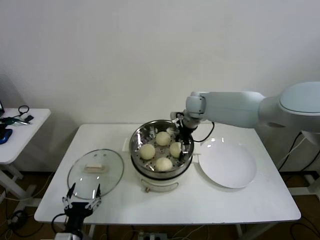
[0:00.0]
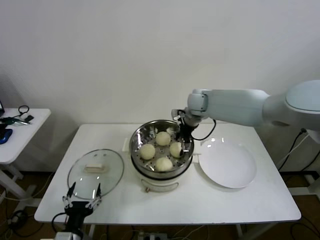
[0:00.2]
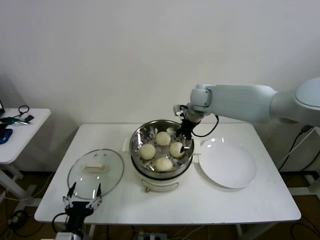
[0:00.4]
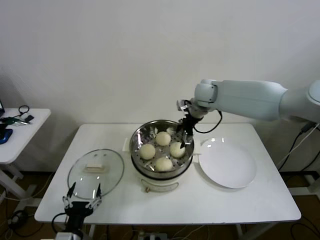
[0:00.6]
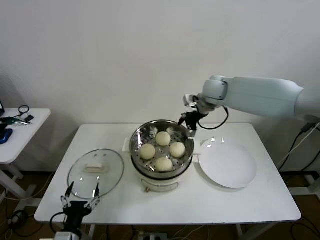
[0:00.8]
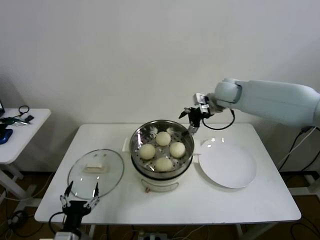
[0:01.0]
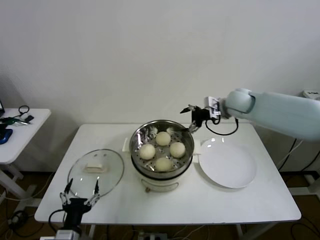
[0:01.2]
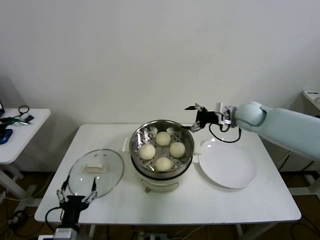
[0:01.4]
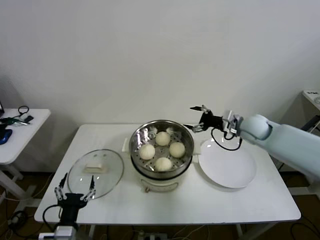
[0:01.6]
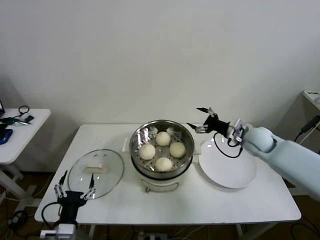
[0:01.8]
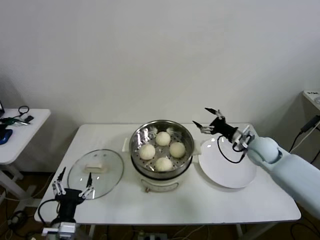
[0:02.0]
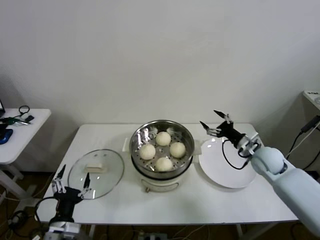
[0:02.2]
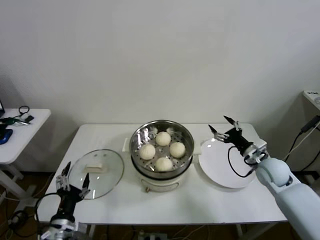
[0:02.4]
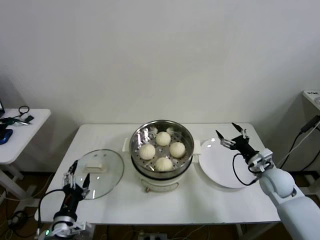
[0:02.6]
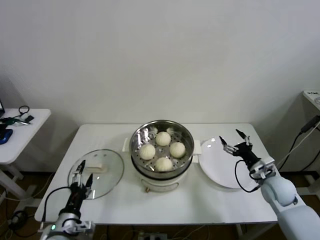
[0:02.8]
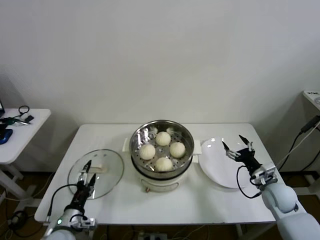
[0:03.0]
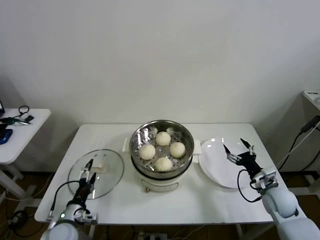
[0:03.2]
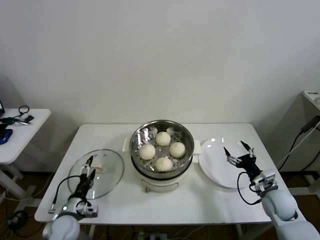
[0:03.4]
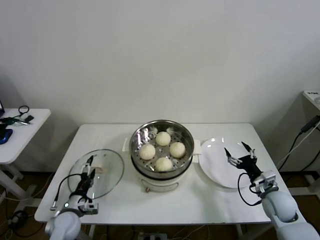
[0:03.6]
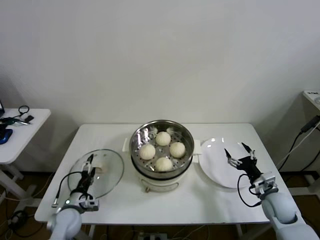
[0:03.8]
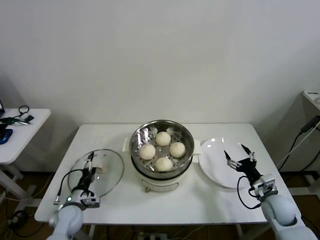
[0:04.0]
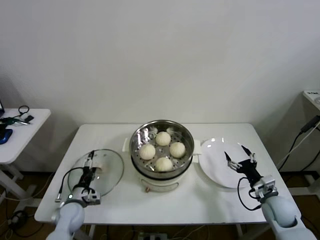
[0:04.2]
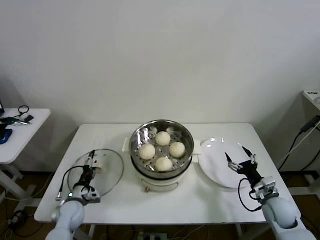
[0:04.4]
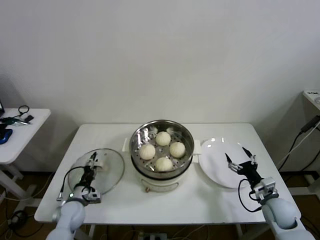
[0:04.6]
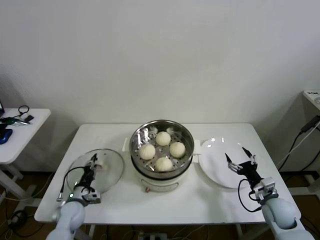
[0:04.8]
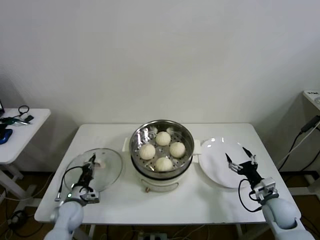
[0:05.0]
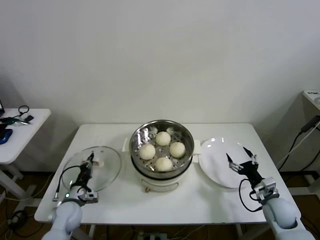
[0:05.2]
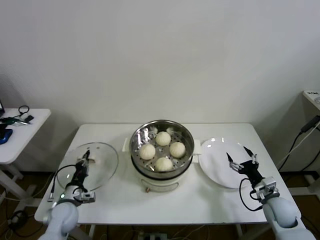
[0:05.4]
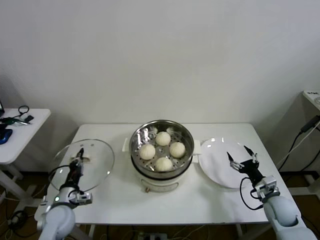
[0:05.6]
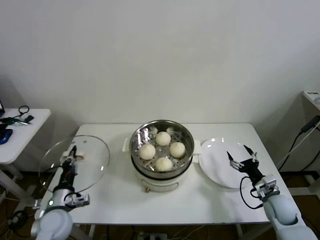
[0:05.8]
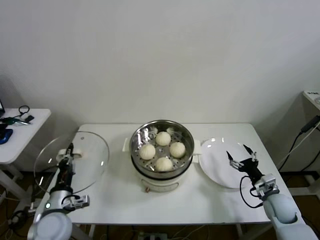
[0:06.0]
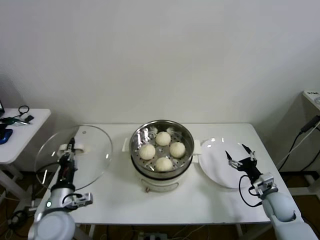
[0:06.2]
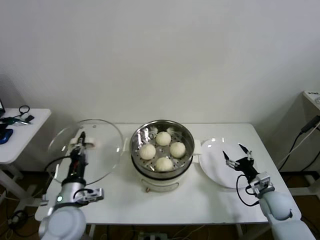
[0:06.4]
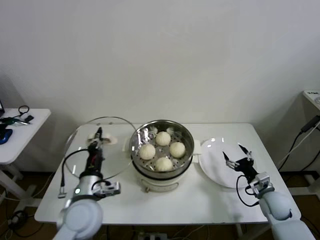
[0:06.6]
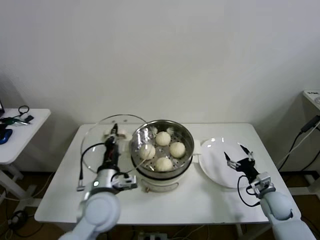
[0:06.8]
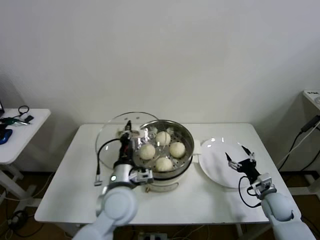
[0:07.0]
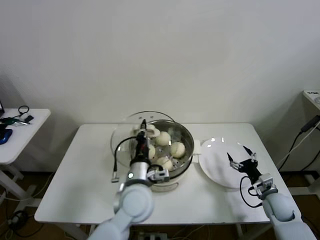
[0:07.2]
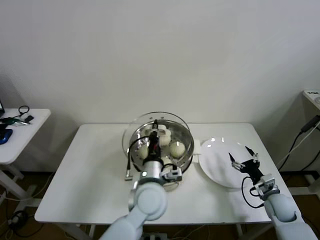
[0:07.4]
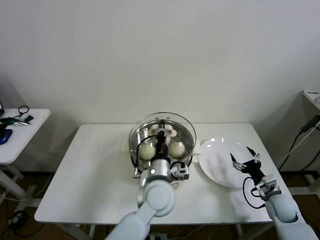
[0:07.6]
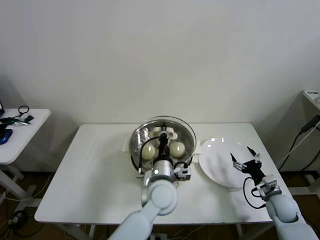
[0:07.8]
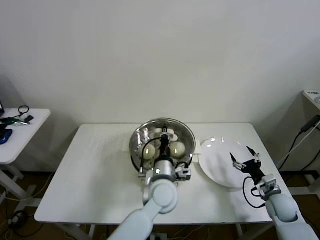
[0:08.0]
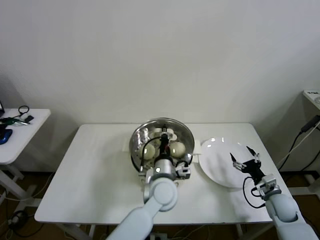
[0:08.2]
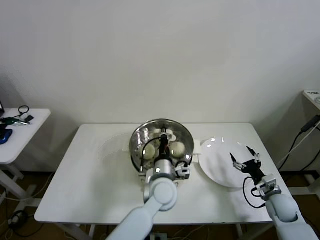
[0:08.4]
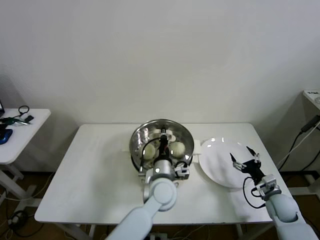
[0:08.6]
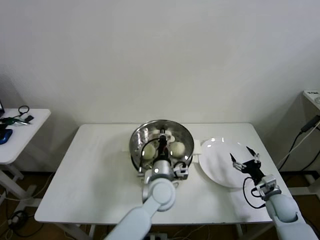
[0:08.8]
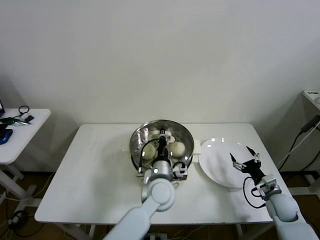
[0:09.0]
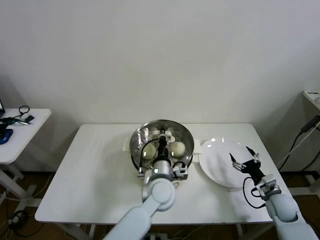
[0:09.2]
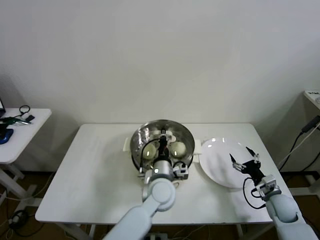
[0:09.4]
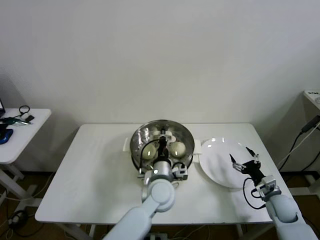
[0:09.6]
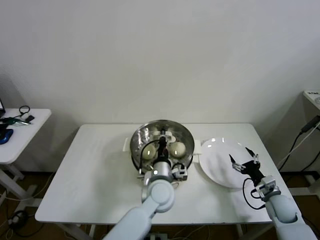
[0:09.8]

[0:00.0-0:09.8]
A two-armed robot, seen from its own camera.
Step, 0:00.0 to 0:04.8: Grasp the pot lid with left gripper.
0:00.0 to 0:01.4: The right gripper goes about 15 cm to the right.
0:01.4 to 0:02.8: The right gripper is displaced downward, backward and to the right by approximately 25 cm. The left gripper moves some 5 cm.
0:02.8 to 0:04.2: The left gripper is displaced forward and downward by about 15 cm. The right gripper goes about 5 cm downward.
0:04.2 to 0:05.6: The left gripper moves approximately 5 cm, and closes its fingers.
0:05.6 to 0:07.0: The left gripper heads to the right and upward, covering about 25 cm.
0:07.0 to 0:08.4: The left gripper is displaced to the right and forward by about 15 cm.
0:08.4 to 0:09.8: The grippers make only small movements.

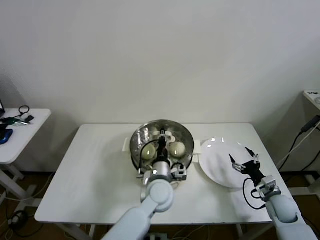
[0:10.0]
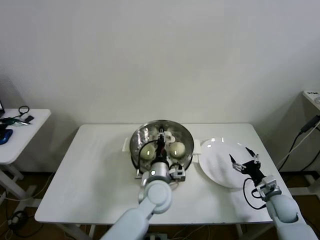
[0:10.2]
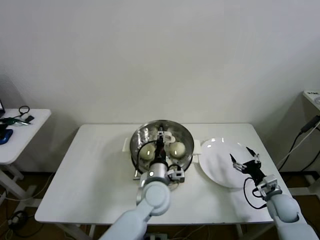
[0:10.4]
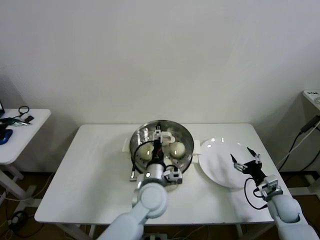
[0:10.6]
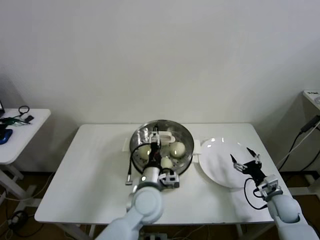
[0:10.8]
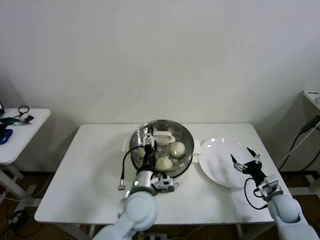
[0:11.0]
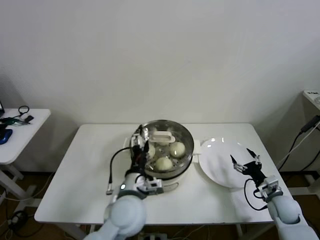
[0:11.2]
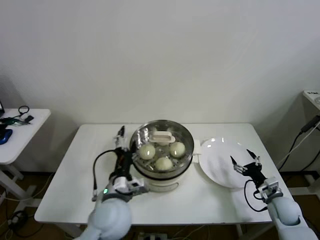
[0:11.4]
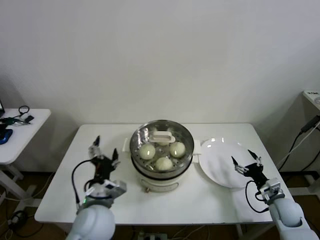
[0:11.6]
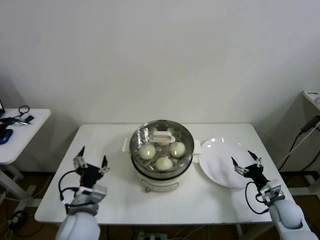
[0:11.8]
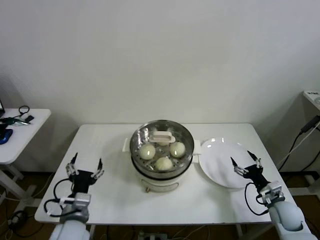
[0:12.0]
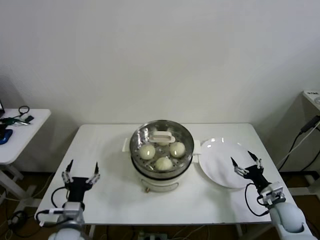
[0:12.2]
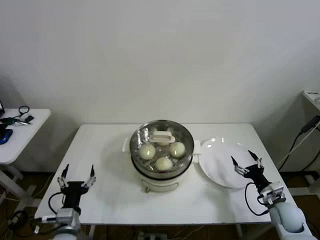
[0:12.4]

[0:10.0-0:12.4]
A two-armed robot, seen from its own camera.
0:10.0 to 0:11.2: The left gripper shifts about 10 cm to the left, backward and upward, and opens its fingers.
0:11.2 to 0:12.4: The left gripper moves to the left and downward, roughly 20 cm.

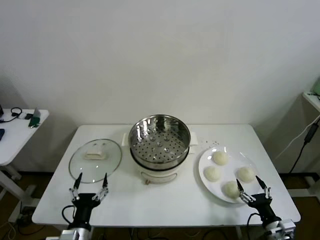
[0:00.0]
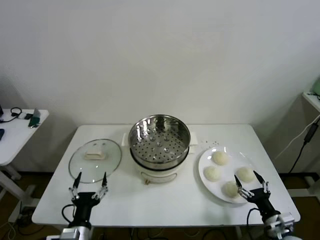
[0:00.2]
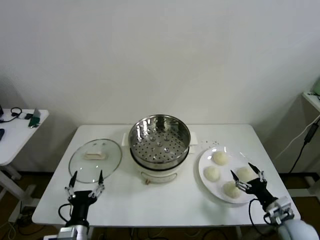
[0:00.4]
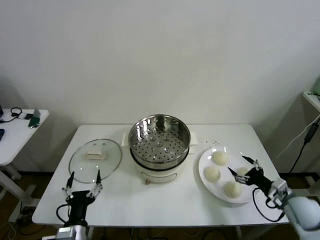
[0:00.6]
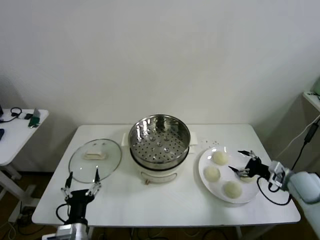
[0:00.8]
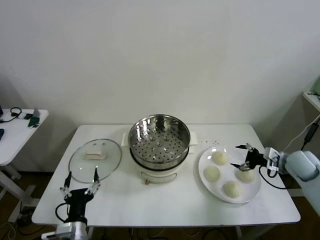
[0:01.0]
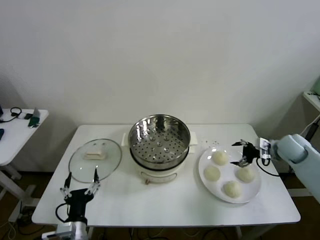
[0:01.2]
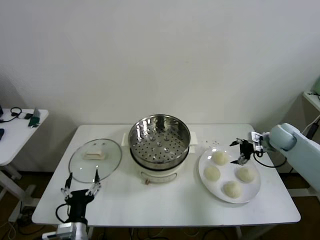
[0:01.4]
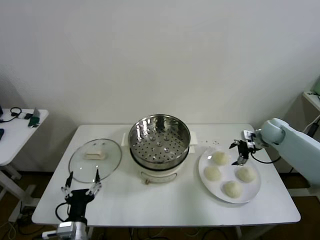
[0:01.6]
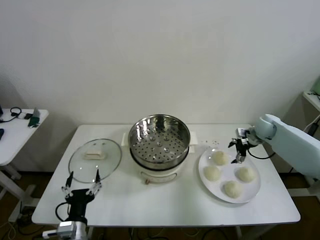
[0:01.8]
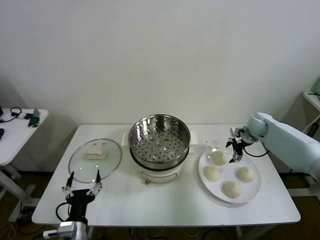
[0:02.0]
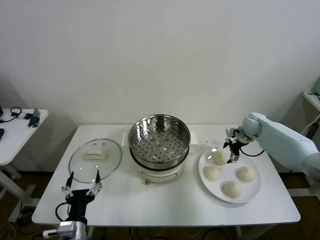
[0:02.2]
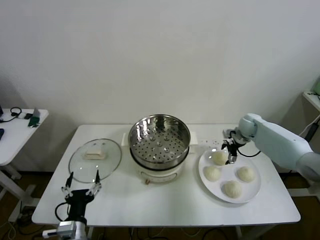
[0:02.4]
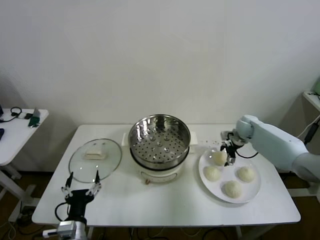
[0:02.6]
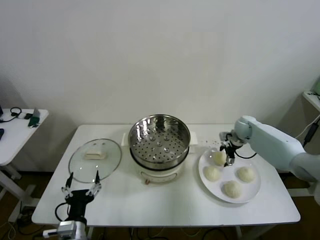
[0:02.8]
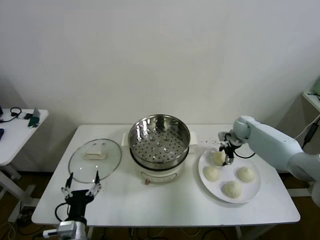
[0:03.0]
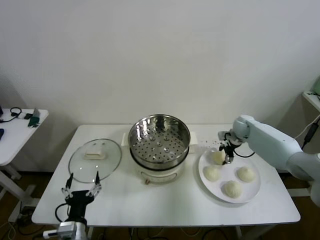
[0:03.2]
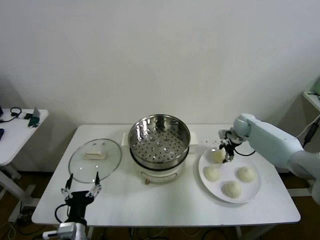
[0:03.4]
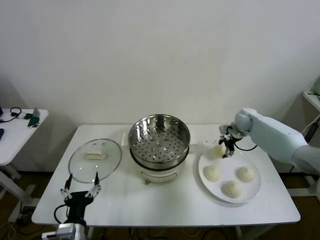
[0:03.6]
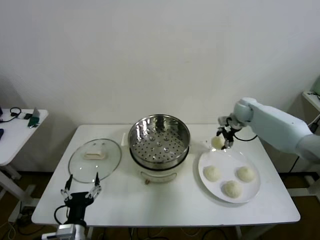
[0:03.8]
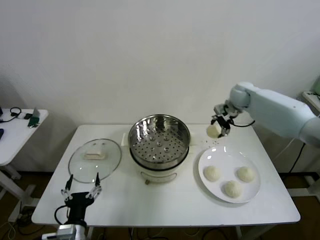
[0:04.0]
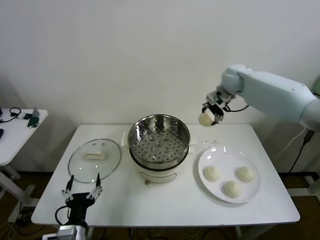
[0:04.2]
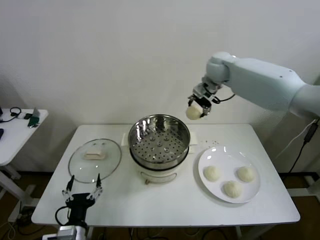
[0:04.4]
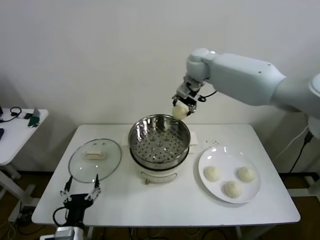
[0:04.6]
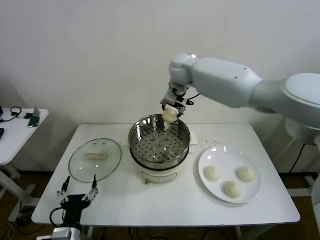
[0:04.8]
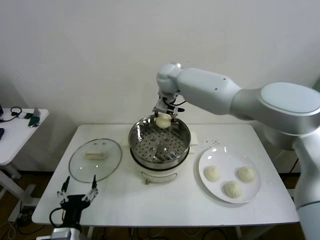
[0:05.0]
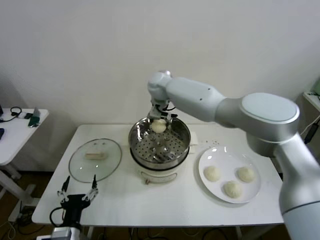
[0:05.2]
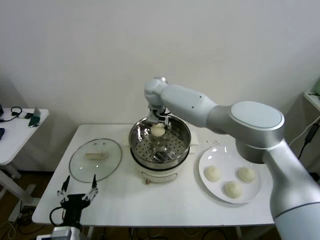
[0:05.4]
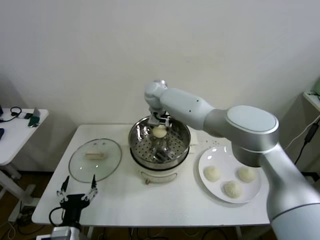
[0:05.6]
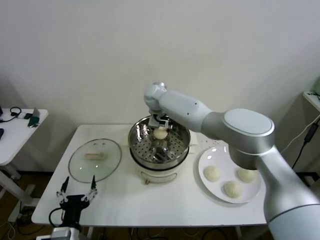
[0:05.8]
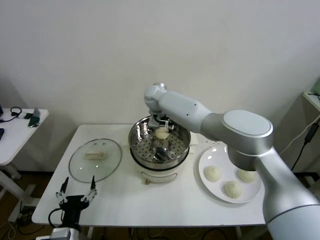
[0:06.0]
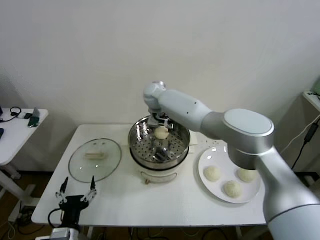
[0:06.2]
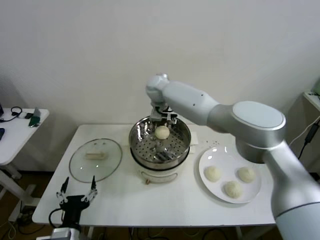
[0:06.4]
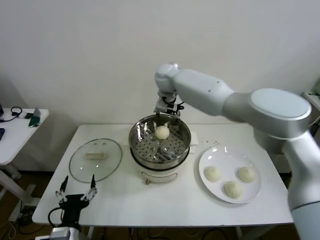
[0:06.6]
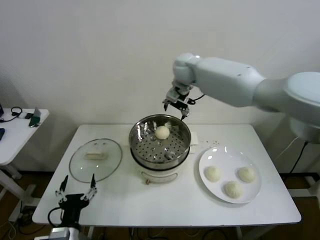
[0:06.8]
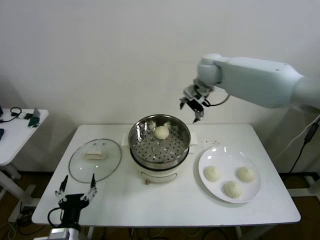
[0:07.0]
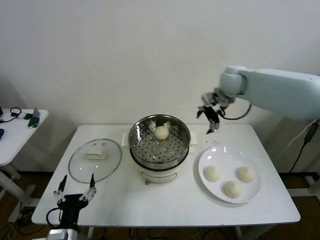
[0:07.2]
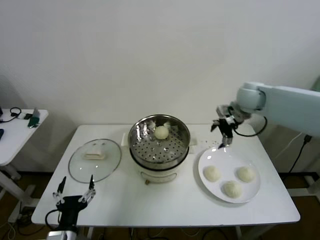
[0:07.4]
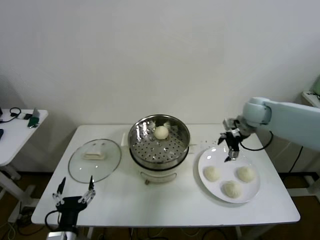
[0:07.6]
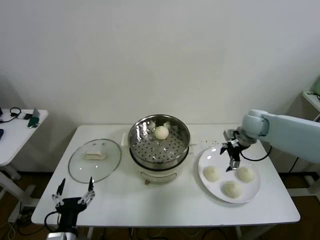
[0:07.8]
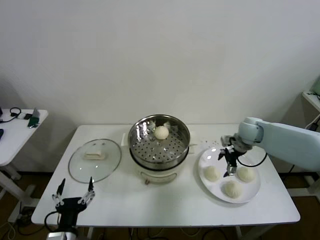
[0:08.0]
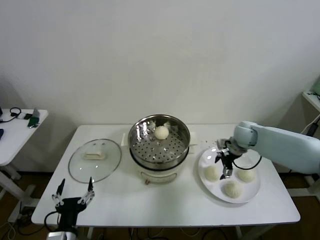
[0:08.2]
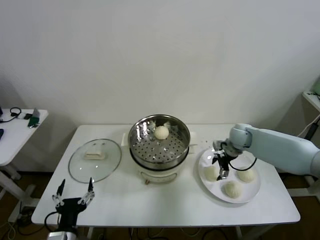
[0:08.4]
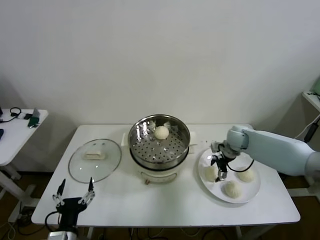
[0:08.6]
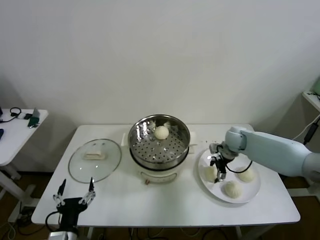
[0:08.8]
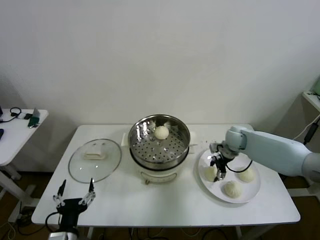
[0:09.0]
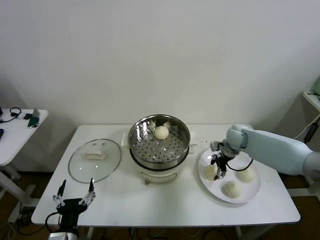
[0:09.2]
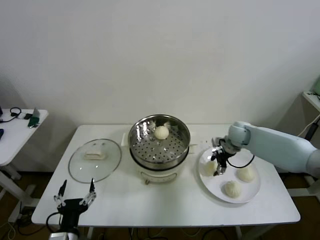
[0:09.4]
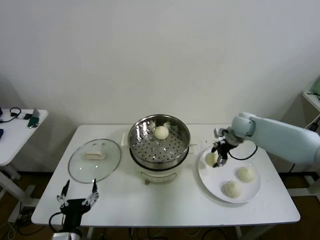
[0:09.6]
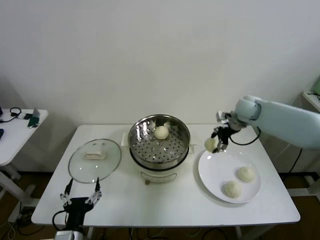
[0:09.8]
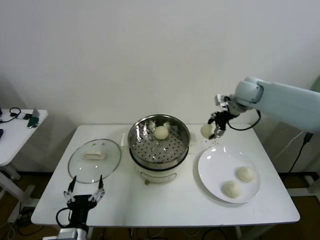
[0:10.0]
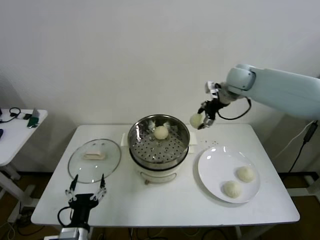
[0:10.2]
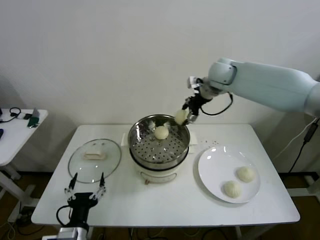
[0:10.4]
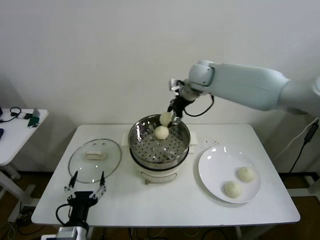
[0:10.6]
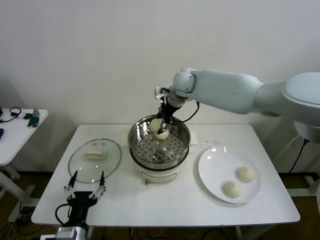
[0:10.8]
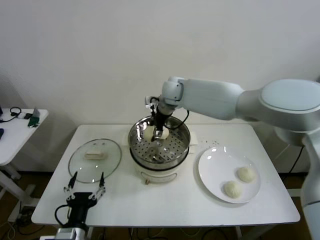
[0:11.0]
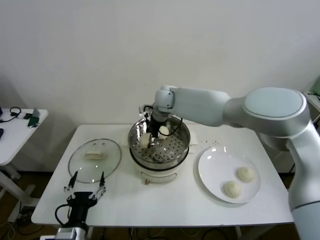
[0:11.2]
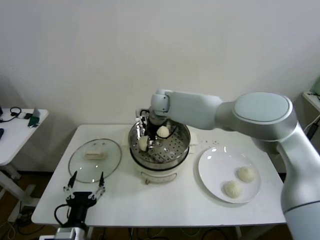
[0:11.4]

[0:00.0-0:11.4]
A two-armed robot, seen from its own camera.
Step, 0:00.0 to 0:03.2: Grasp the baozi in the plate with right gripper.
Step, 0:03.4 to 0:06.0: Place the baozi on the steamer with right gripper.
Step, 0:06.2 to 0:09.0: Grasp the baozi in the plate with right gripper.
0:01.4 to 0:02.8: The right gripper is displaced to the left and forward by about 10 cm, and closes.
0:02.8 to 0:04.2: The right gripper heads upward and to the left, covering about 25 cm, and closes up.
0:04.2 to 0:05.6: The right gripper goes approximately 25 cm to the left.
0:05.6 to 0:07.2: The right gripper is displaced to the right by roughly 25 cm, and opens up.
0:07.2 to 0:08.6: The right gripper moves downward, about 25 cm.
0:08.6 to 0:10.0: The right gripper travels upward by about 20 cm, and closes.
0:10.0 to 0:11.4: The right gripper goes about 30 cm to the left.
